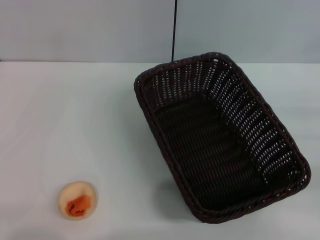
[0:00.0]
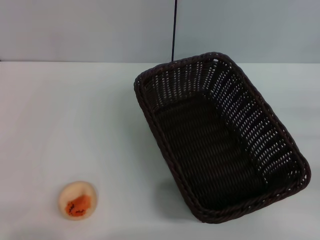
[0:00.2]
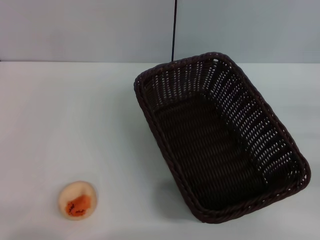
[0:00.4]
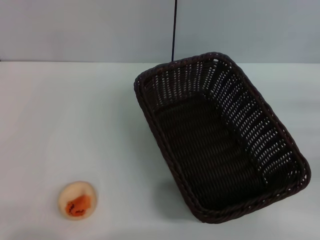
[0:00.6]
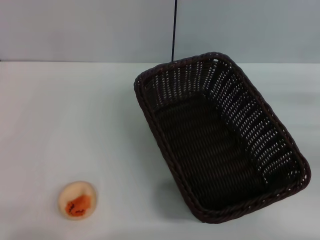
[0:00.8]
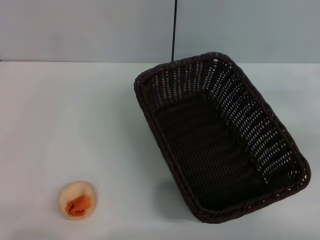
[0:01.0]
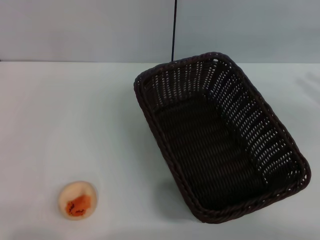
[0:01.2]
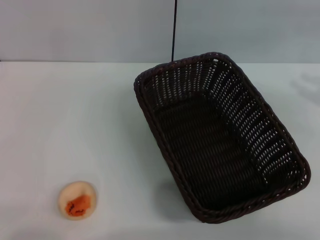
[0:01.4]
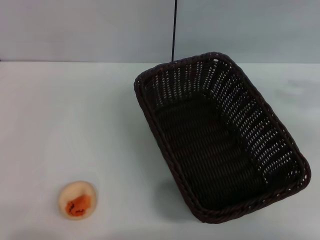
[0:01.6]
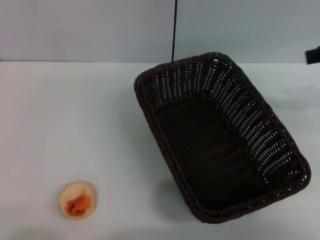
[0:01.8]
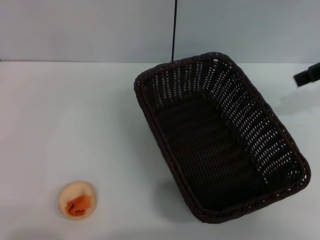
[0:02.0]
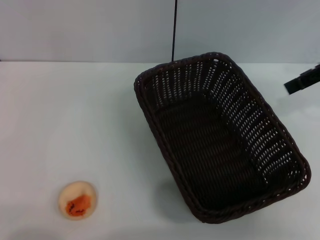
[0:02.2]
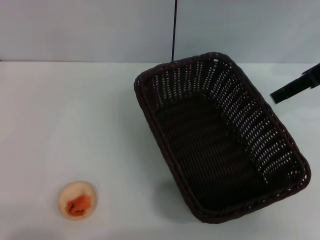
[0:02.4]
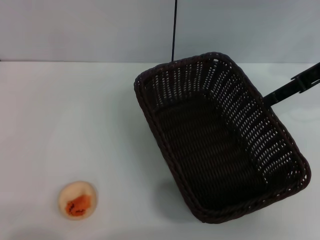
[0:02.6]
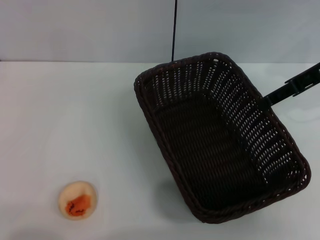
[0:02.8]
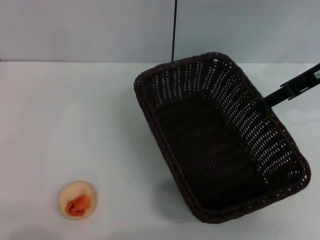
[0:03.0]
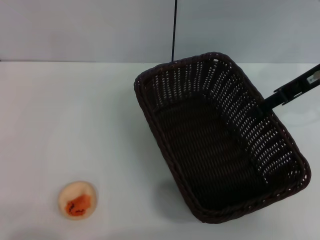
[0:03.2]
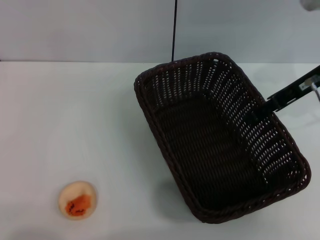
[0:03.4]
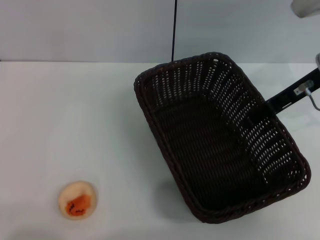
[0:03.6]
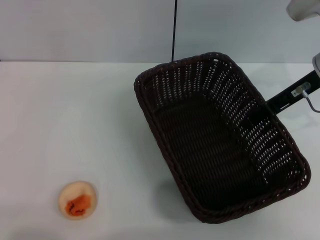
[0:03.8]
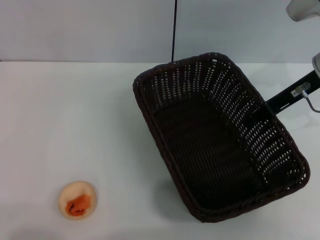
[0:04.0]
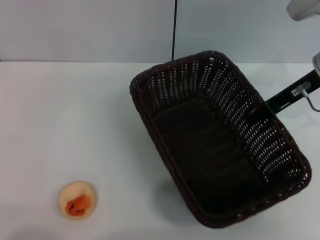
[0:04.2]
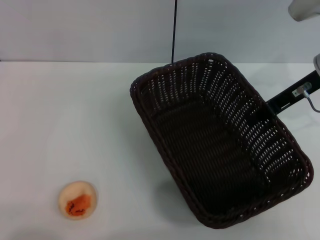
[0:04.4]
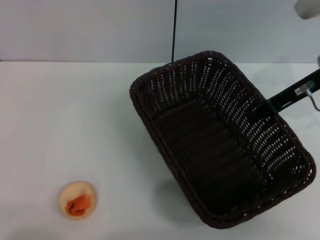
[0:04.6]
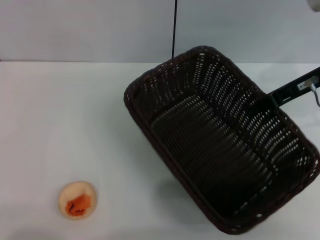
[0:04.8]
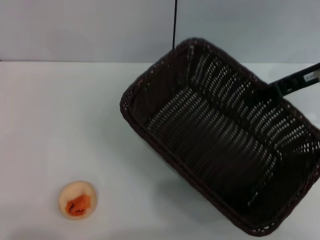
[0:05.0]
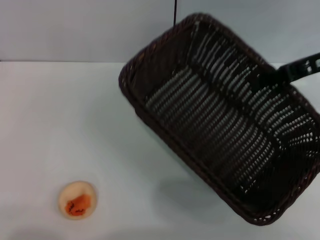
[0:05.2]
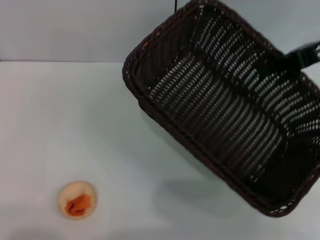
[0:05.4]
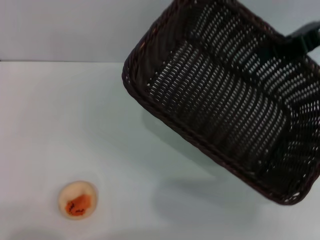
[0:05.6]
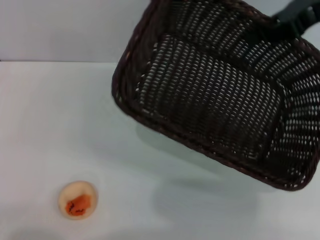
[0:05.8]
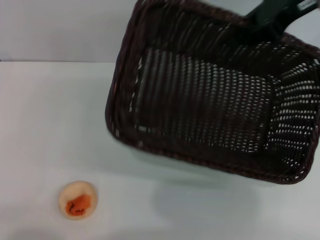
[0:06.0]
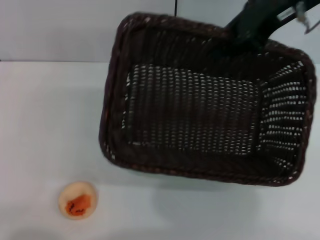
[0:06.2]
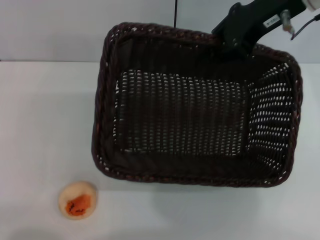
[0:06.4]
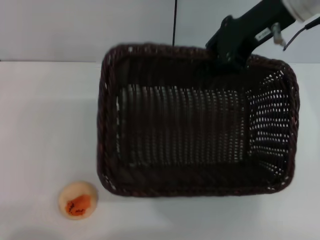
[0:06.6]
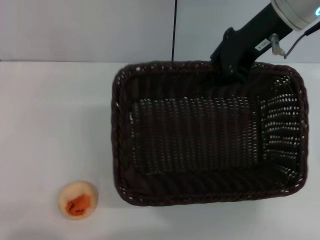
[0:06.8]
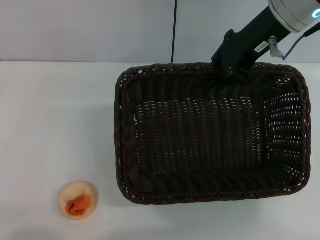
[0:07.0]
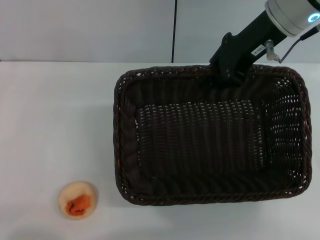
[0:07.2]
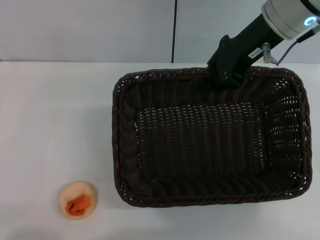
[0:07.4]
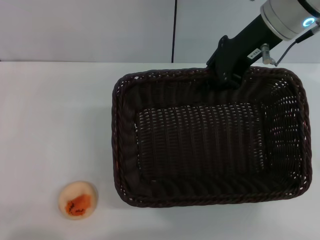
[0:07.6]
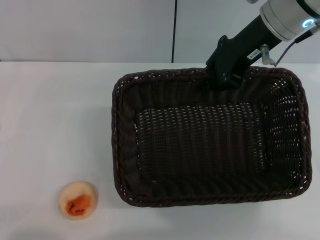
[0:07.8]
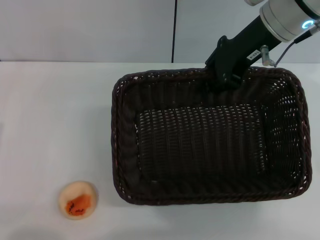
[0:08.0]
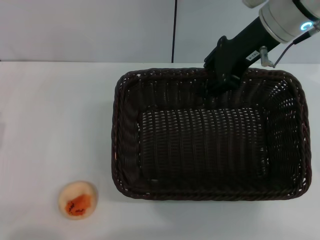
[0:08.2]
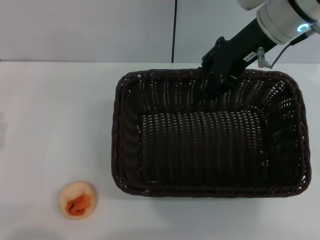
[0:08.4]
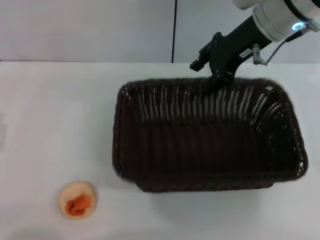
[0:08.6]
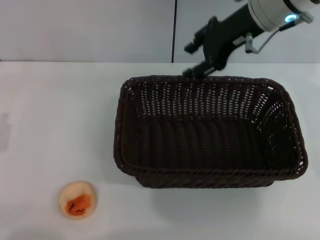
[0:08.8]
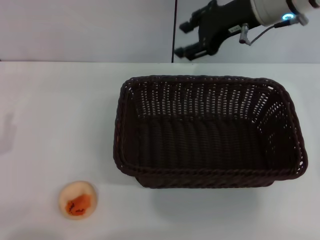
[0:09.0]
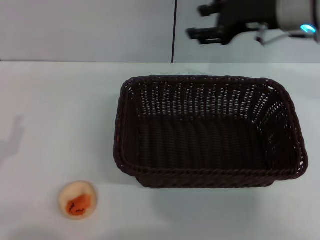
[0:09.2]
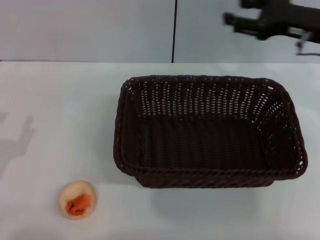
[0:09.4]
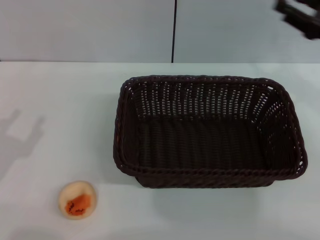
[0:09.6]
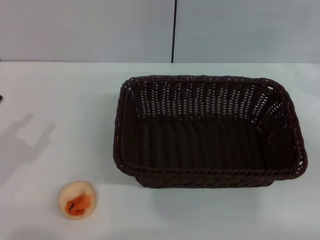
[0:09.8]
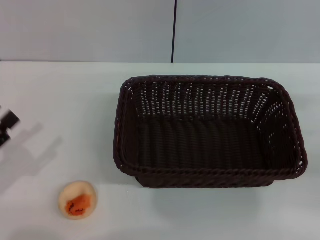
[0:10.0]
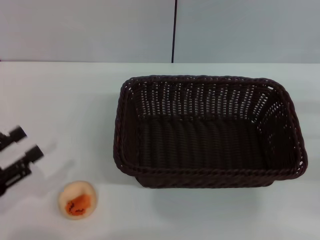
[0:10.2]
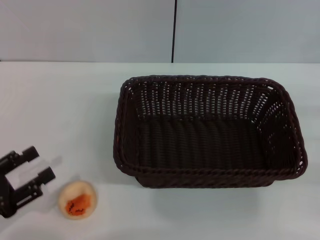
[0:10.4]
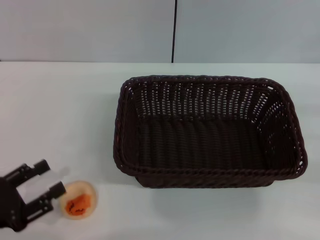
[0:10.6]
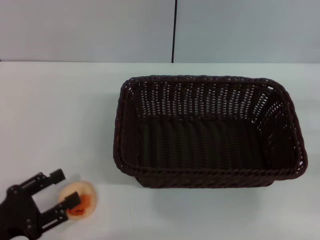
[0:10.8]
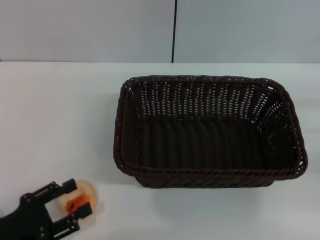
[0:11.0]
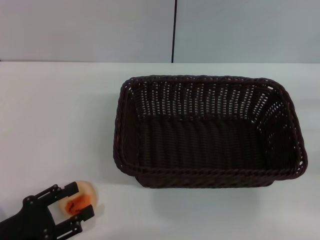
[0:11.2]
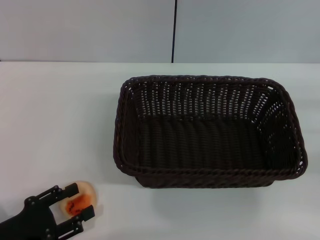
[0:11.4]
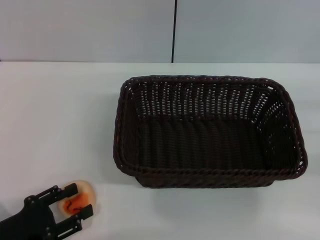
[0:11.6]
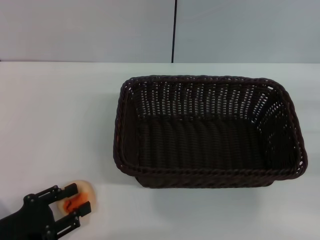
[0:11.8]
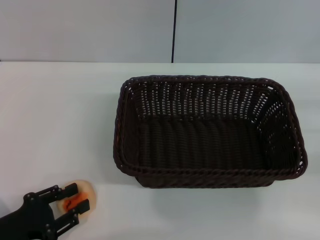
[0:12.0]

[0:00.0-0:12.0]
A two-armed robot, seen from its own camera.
Step, 0:00.0 to 0:09.2: Move the basket to the center of view with the right gripper.
0:01.6 to 0:03.0: The right gripper goes some 15 cm to the left and forward.
0:03.0 to 0:04.4: The right gripper closes its fingers.
0:04.4 to 0:06.0: The right gripper shifts about 10 cm upward.
0:06.0 to 0:07.6: The right gripper heads to the left and downward, covering roughly 10 cm.
0:07.6 to 0:09.0: The right gripper opens up.
0:09.0 to 0:10.4: The right gripper travels to the right, backward and downward by roughly 35 cm.
0:10.4 to 0:12.0: The left gripper ends up approximately 5 cm from where it was.

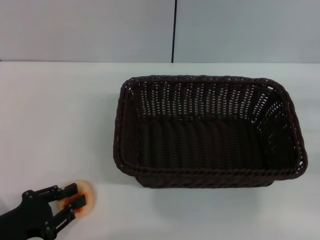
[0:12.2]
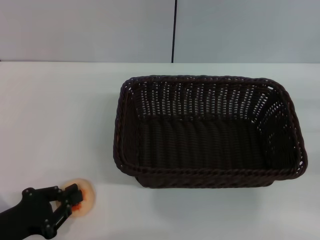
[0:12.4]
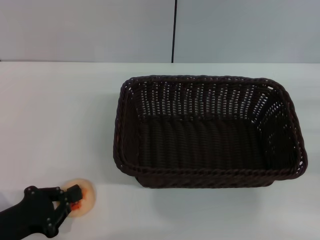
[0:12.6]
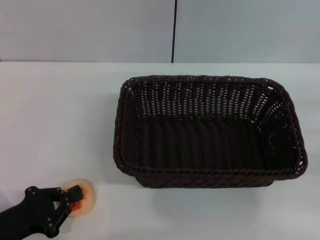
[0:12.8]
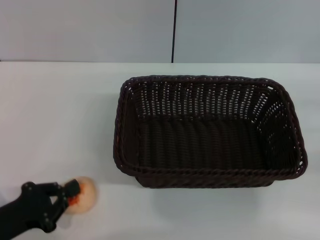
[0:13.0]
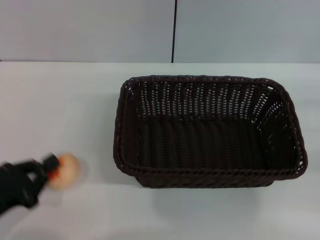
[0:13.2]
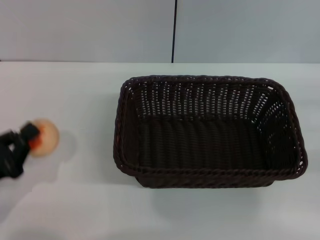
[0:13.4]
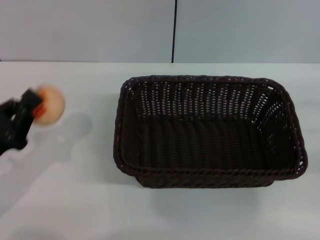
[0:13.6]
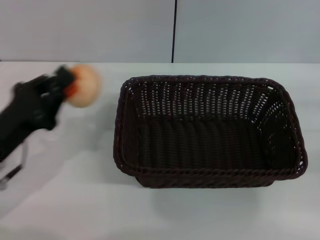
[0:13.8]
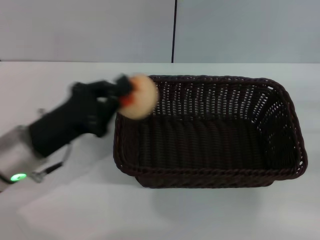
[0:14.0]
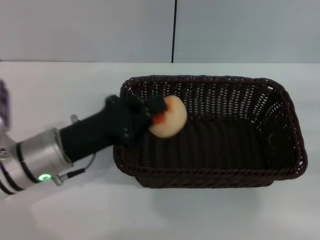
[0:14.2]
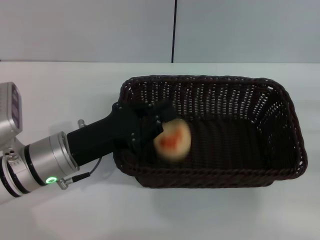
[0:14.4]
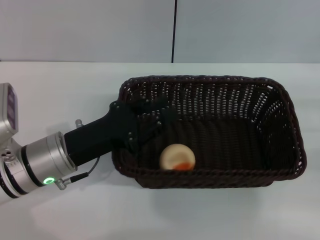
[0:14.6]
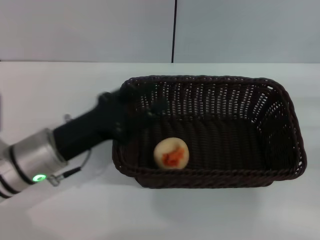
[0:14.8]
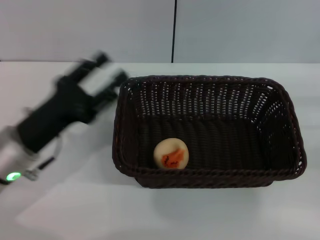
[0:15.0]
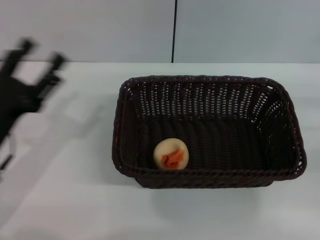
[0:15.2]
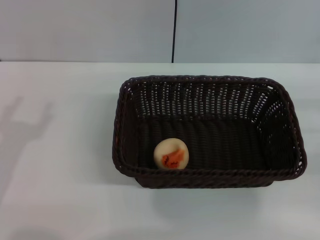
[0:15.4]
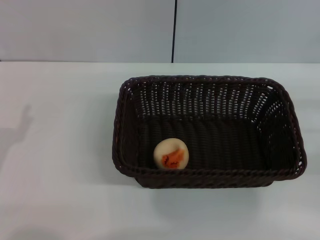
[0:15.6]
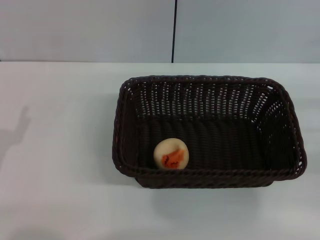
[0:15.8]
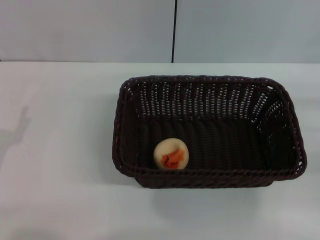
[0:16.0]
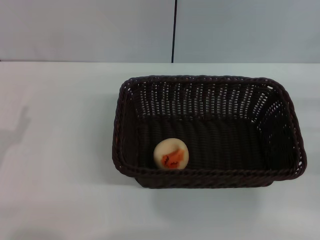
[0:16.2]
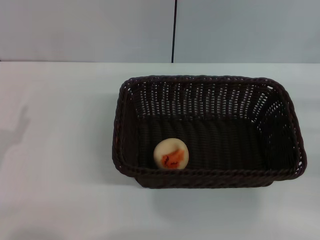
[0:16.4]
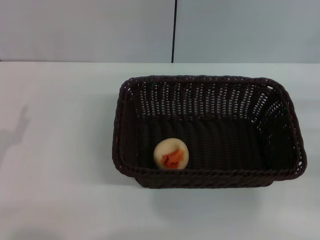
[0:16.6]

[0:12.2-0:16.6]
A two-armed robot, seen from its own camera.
Step, 0:13.8 to 0:15.0: Place the egg yolk pastry into the basket with the left gripper.
0:12.2 to 0:13.6: The left gripper changes place by some 5 cm, and closes its fingers.
0:13.6 to 0:15.2: The left gripper reaches about 10 cm to the right, then returns, and opens.
0:15.2 to 0:16.6: The left gripper is displaced to the left by some 5 cm.

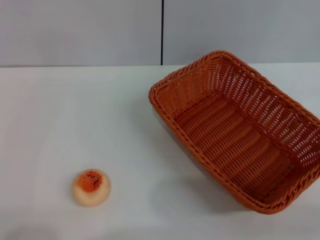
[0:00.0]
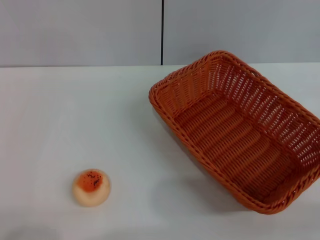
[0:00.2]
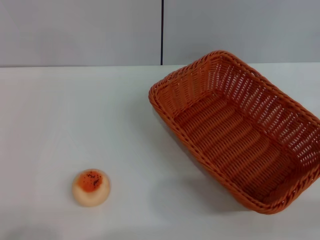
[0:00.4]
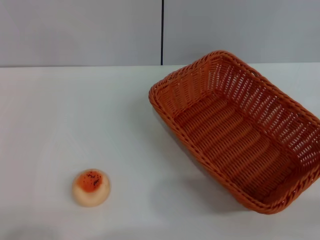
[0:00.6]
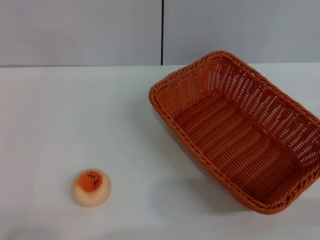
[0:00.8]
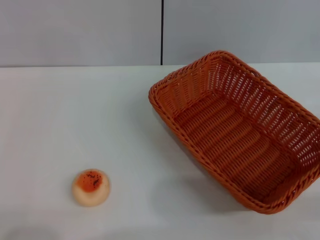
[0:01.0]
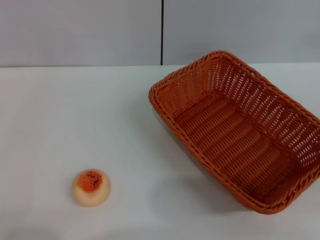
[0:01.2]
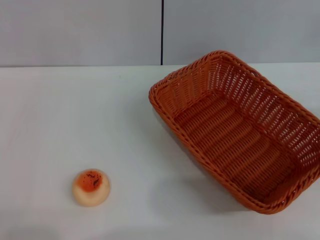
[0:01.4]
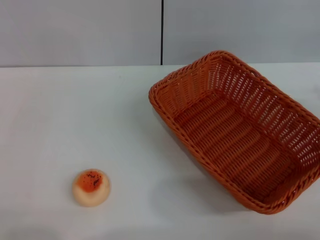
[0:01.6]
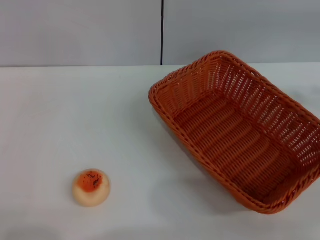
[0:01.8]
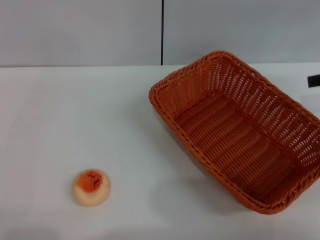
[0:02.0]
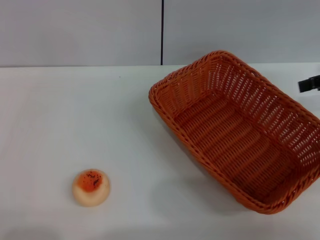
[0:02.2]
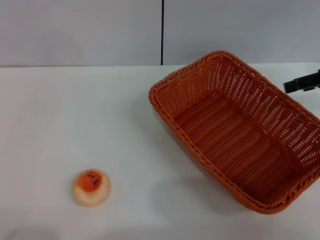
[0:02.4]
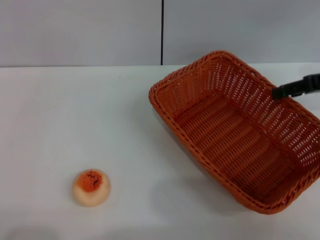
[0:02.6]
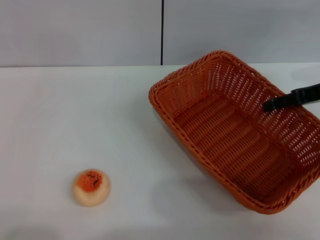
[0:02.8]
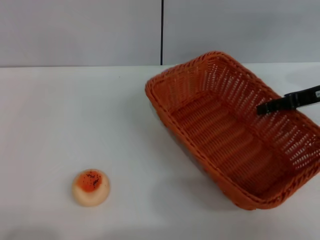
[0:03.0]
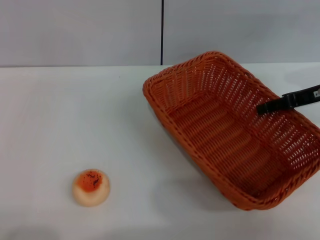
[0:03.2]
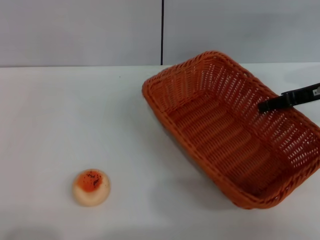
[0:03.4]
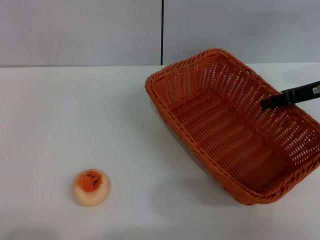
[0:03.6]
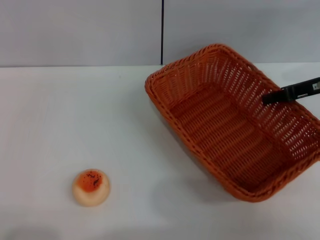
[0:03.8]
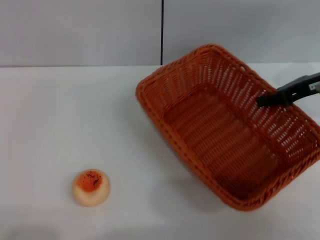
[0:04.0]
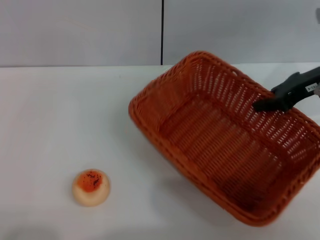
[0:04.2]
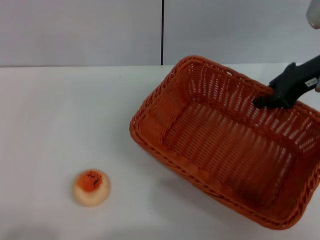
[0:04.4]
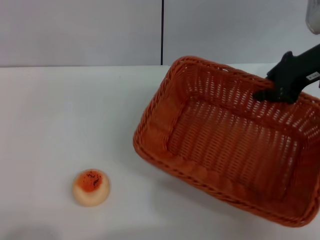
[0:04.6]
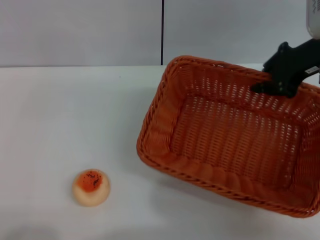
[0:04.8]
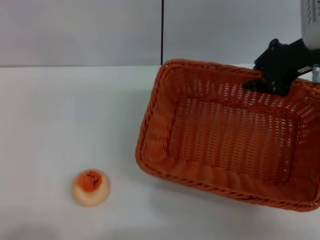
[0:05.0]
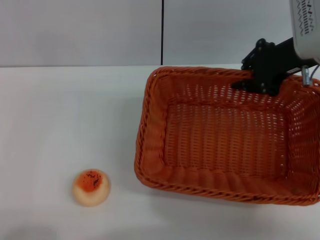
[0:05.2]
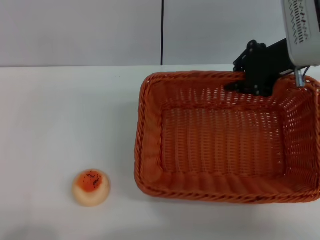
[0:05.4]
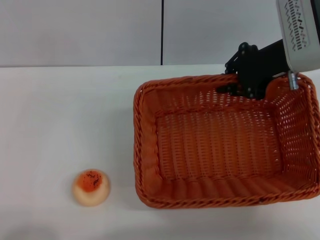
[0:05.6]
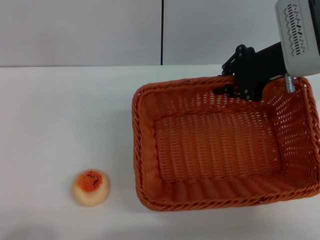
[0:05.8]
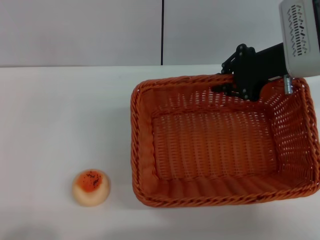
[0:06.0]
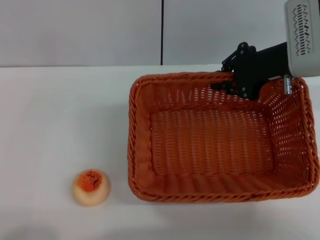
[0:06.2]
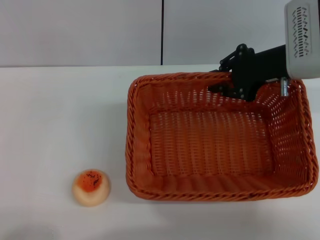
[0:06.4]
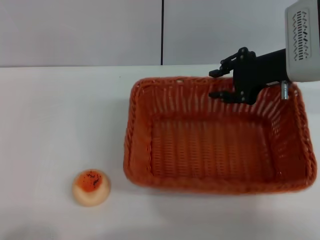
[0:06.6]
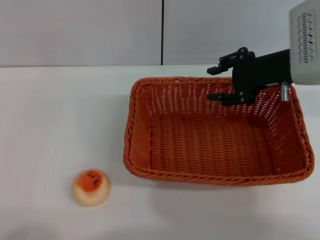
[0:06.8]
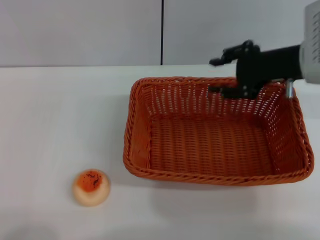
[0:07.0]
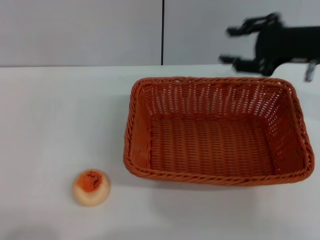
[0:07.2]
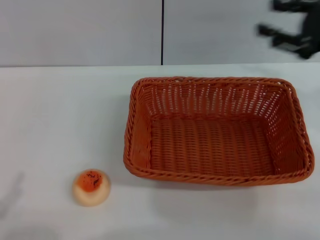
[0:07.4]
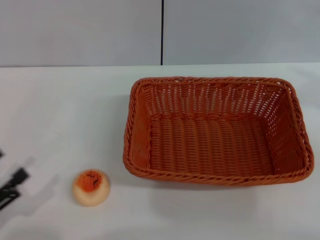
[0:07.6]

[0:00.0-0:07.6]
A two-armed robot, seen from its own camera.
Step, 0:00.0 to 0:07.0: Move the basket to the center of view with the right gripper.
0:01.6 to 0:03.0: The right gripper travels to the left and forward by some 15 cm.
0:03.0 to 0:04.6: The right gripper shifts approximately 10 cm upward and to the left, and closes up.
0:06.0 to 0:07.6: The right gripper shifts roughly 20 cm to the right and backward, and opens its fingers, while the left gripper goes some 10 cm forward.
